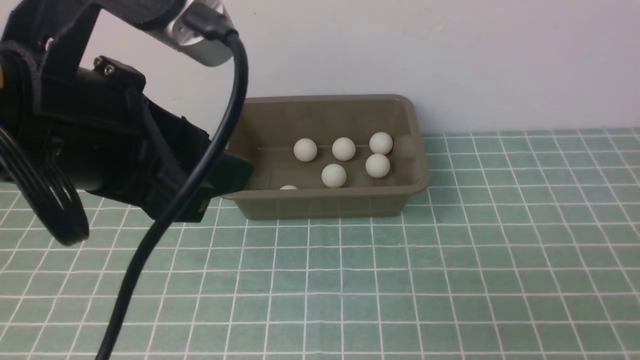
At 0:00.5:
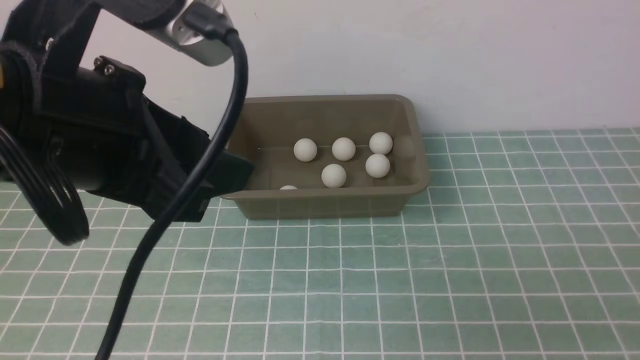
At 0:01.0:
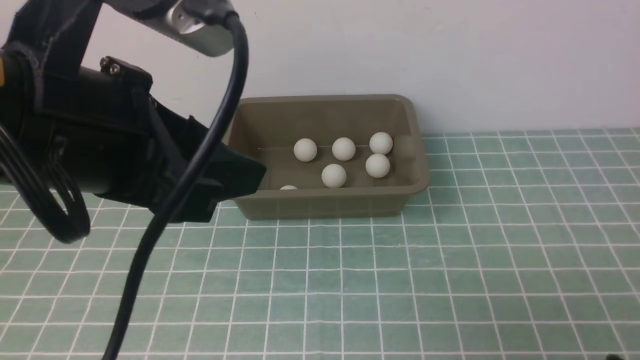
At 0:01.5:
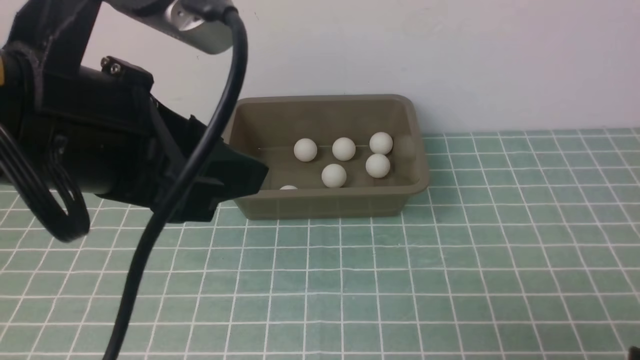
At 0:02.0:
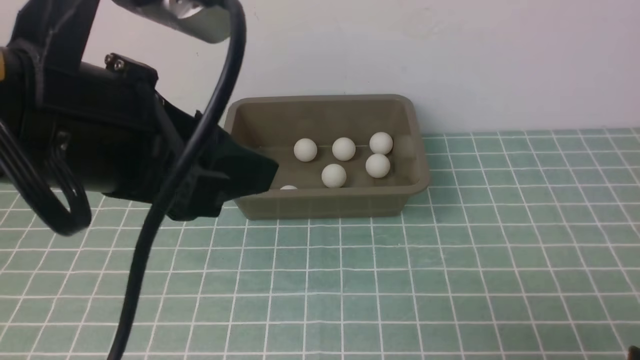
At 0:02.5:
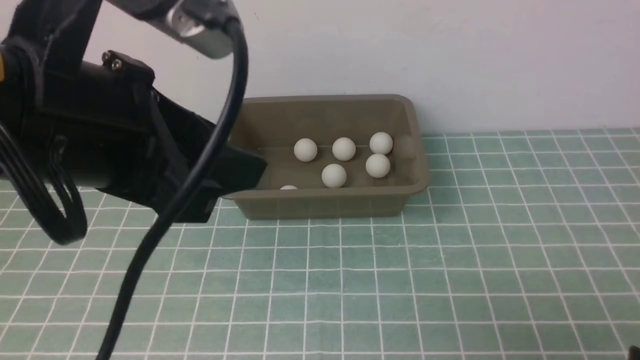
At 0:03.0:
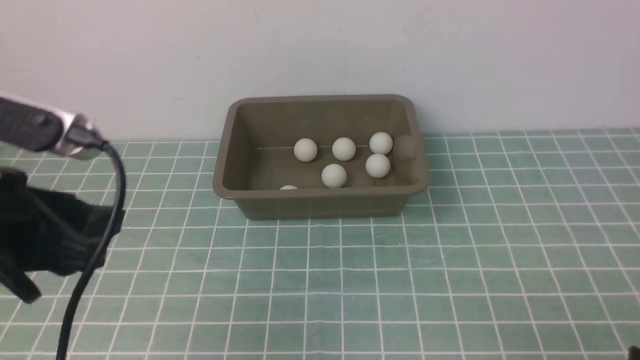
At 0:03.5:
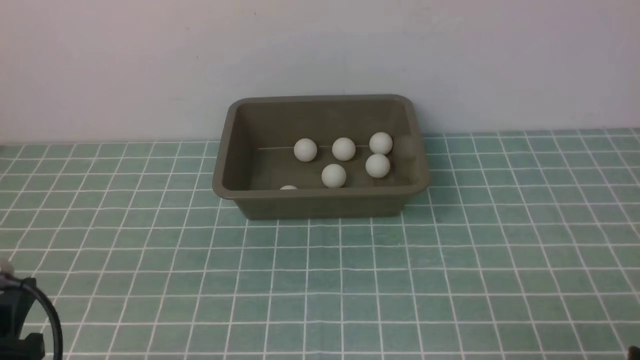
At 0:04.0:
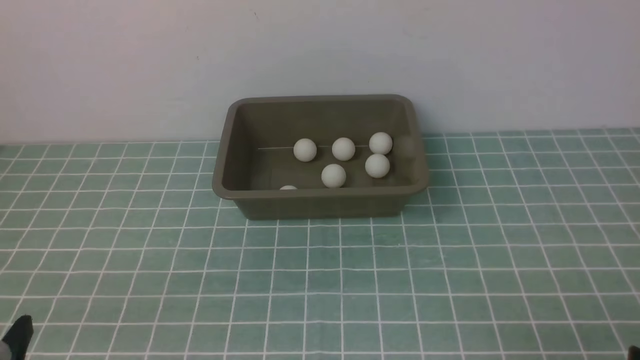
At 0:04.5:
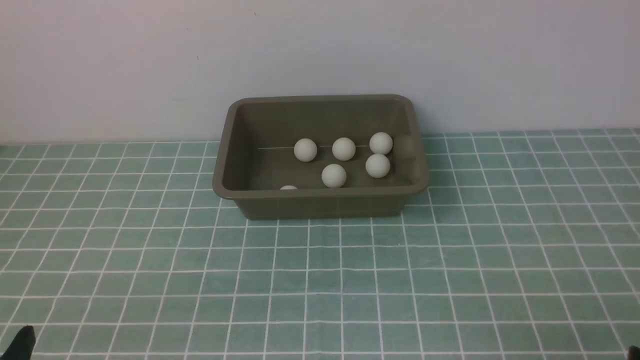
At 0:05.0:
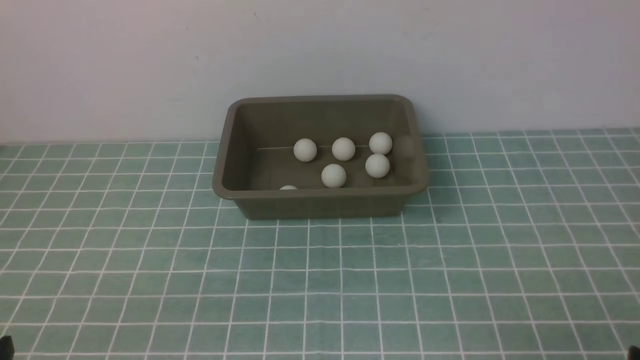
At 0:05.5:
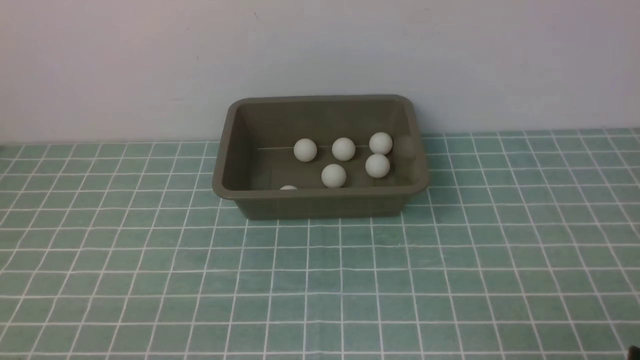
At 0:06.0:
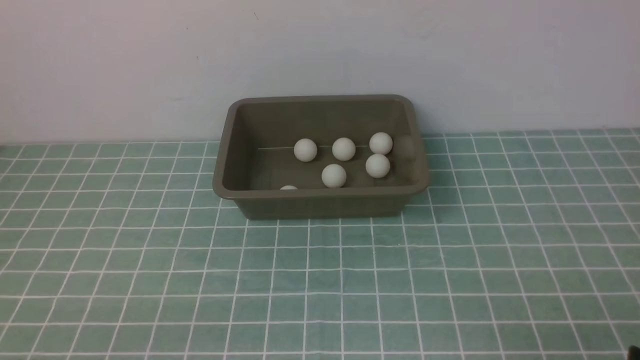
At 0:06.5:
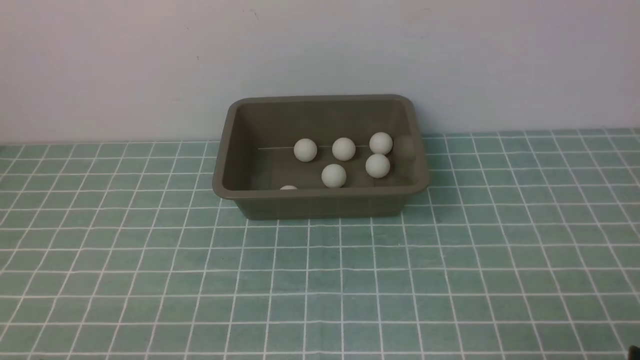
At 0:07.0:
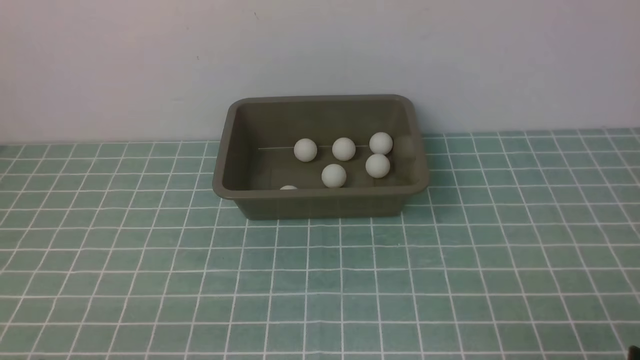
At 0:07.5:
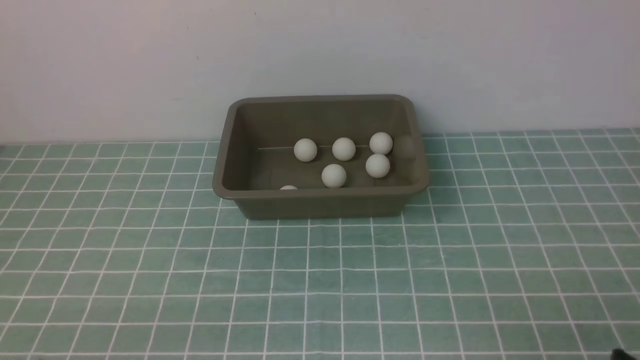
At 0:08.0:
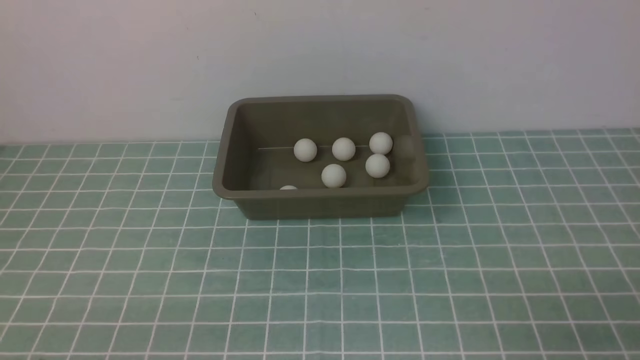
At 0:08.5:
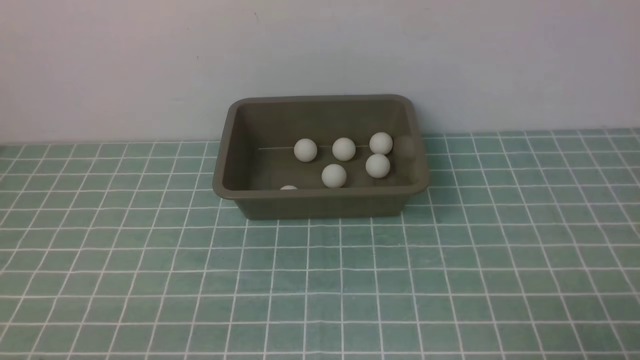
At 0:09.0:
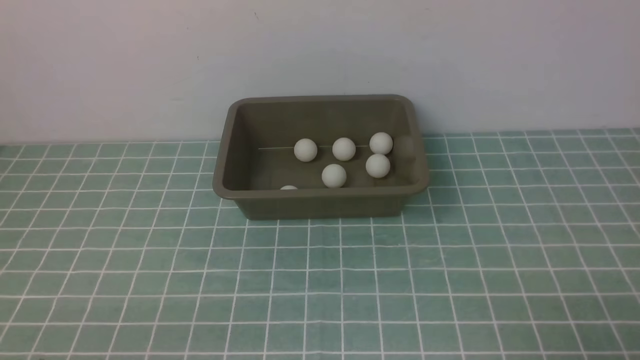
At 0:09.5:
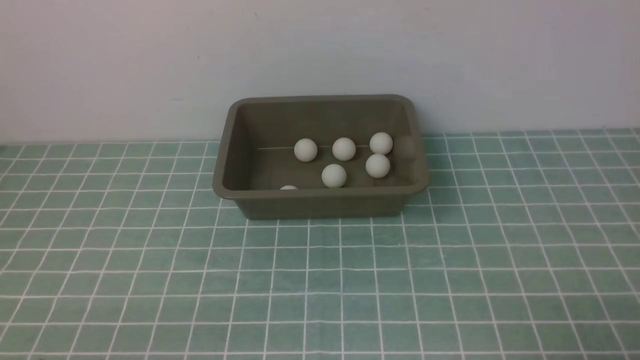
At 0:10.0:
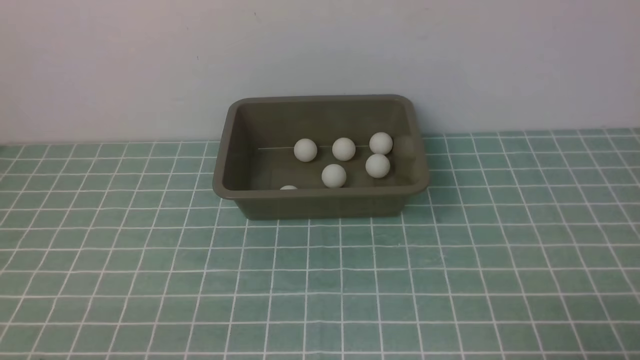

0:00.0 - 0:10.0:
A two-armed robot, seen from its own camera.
0:00.0 - 0:02.0: The right gripper is displaced downward by about 10 cm.
0:02.0 - 0:04.0: The left gripper shifts roughly 25 cm downward, to the left and backward.

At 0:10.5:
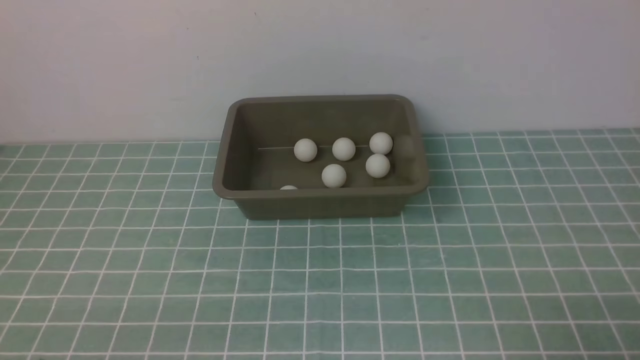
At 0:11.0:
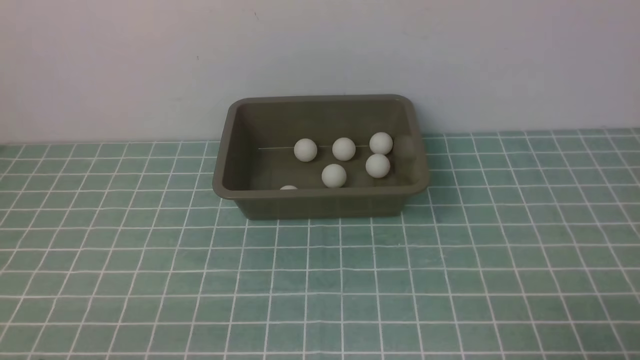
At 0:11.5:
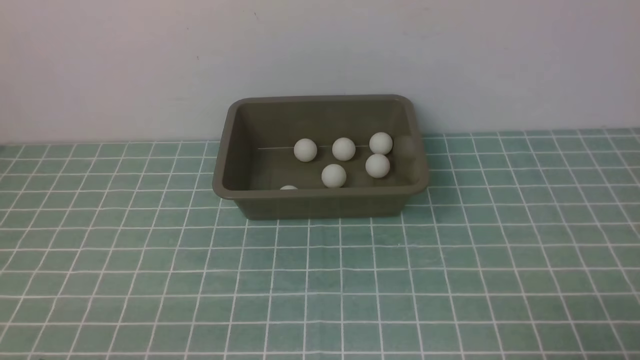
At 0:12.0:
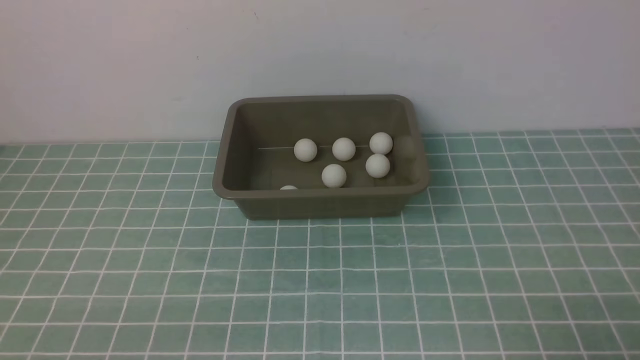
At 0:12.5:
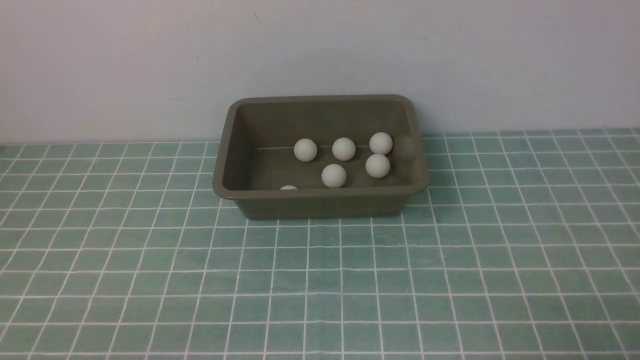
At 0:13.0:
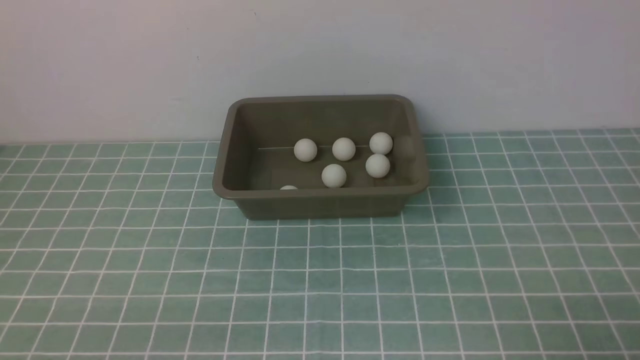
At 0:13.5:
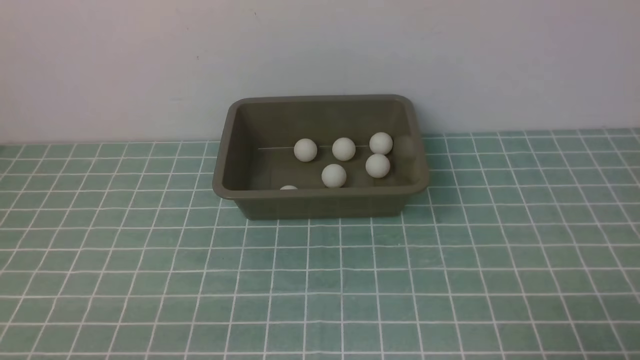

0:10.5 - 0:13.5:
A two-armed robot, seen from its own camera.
0:10.5 - 0:13.5: Both grippers stay about where they are.
